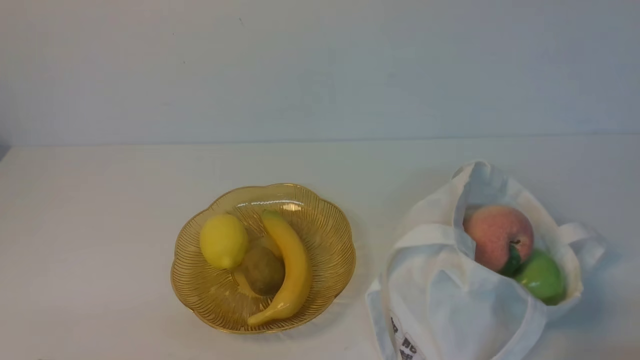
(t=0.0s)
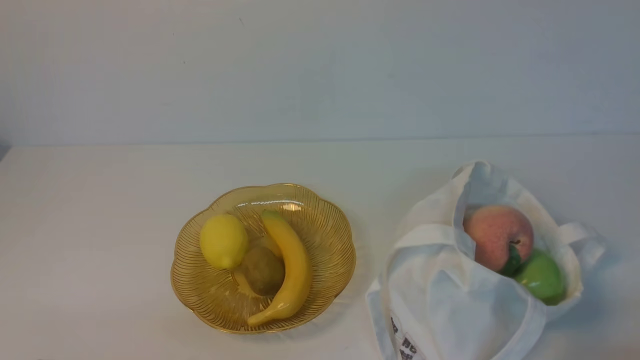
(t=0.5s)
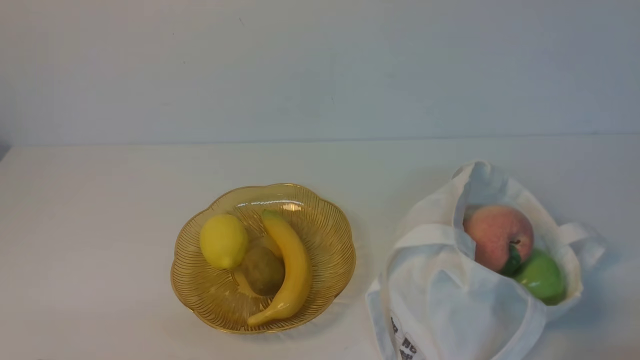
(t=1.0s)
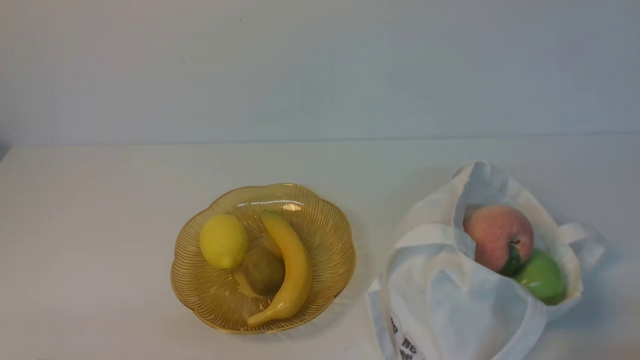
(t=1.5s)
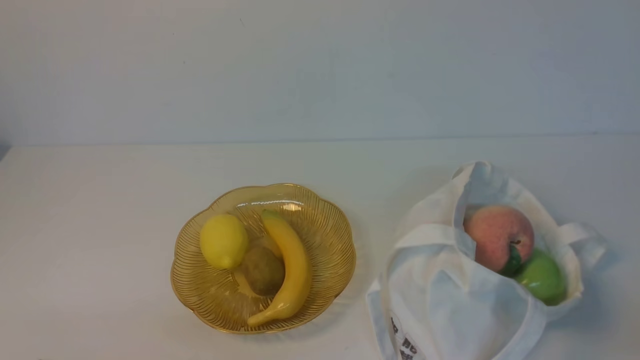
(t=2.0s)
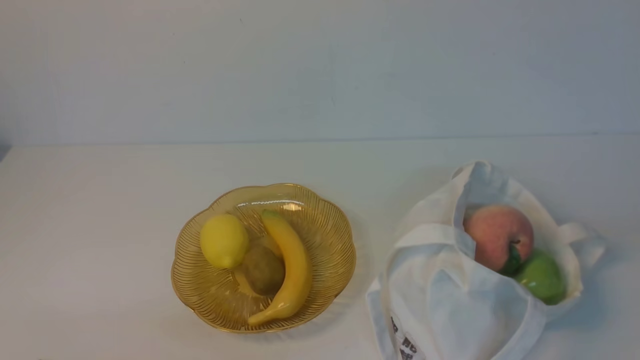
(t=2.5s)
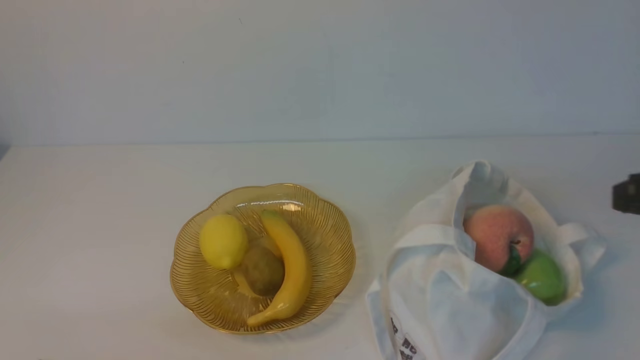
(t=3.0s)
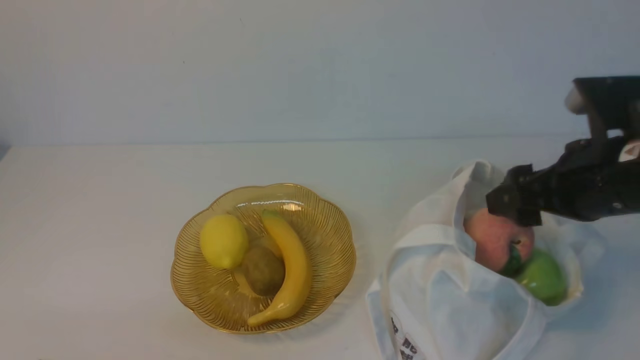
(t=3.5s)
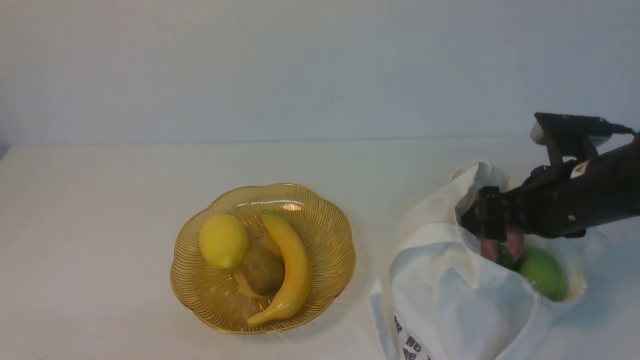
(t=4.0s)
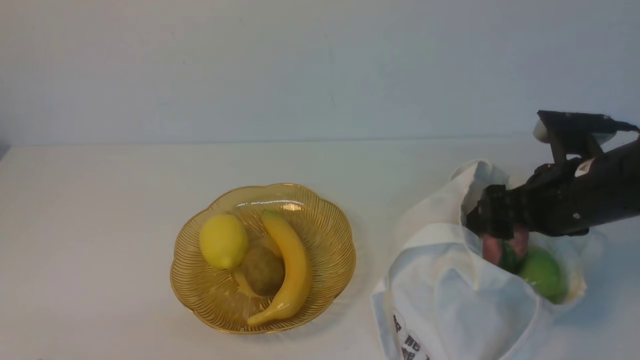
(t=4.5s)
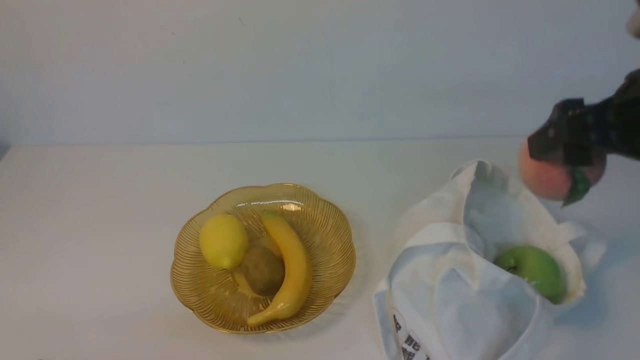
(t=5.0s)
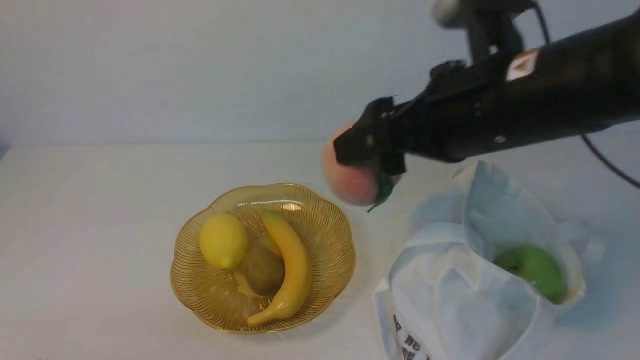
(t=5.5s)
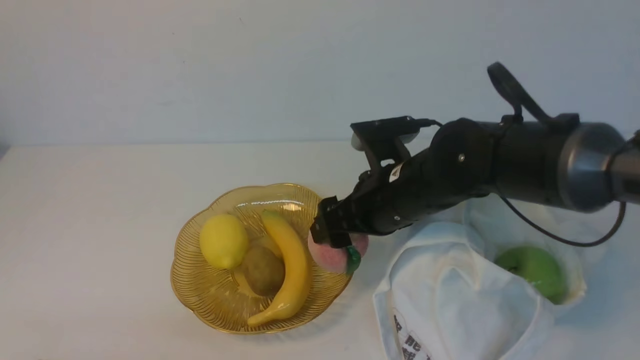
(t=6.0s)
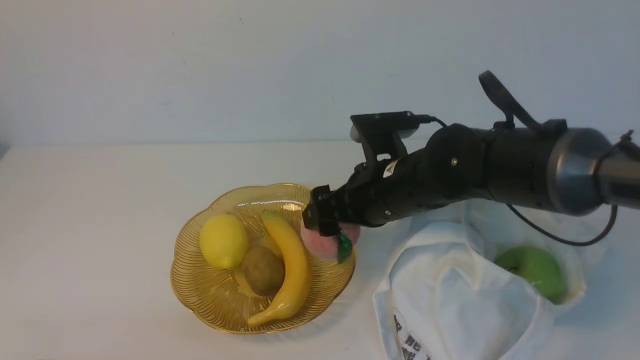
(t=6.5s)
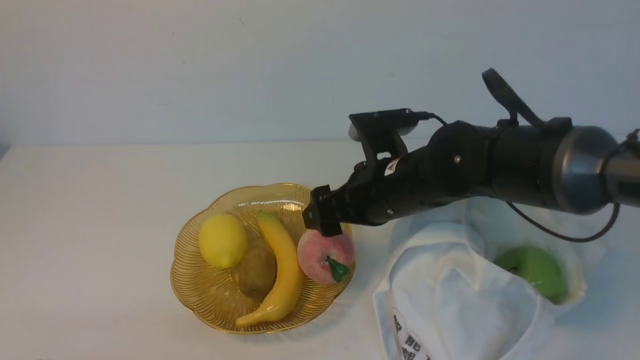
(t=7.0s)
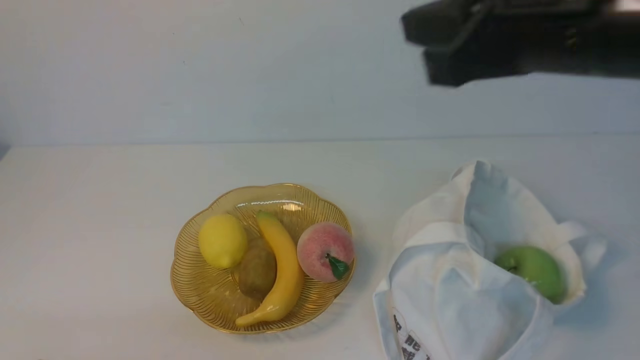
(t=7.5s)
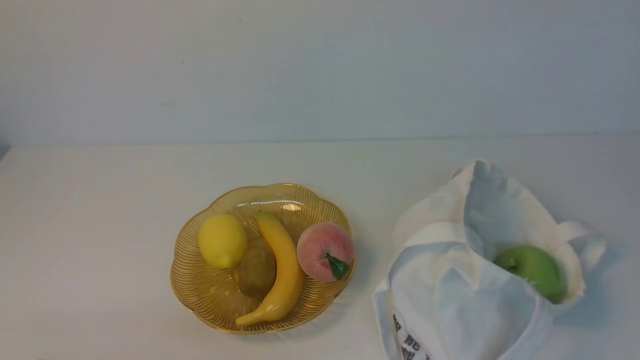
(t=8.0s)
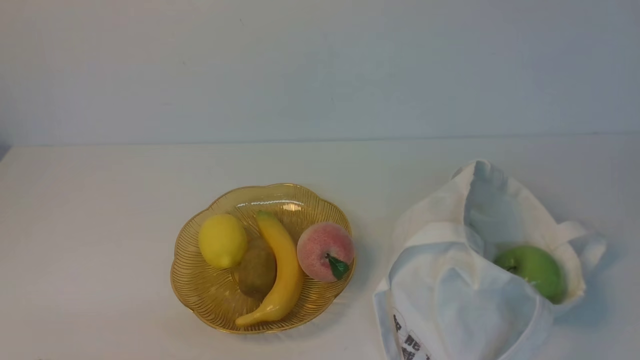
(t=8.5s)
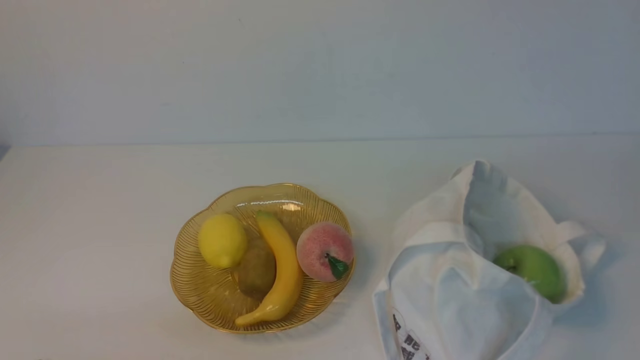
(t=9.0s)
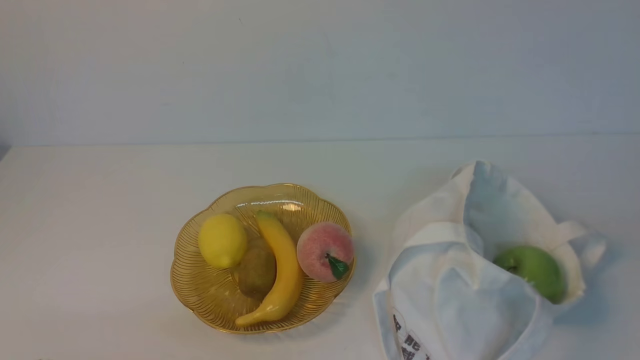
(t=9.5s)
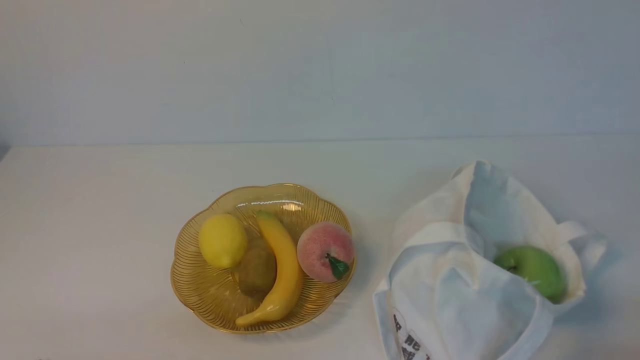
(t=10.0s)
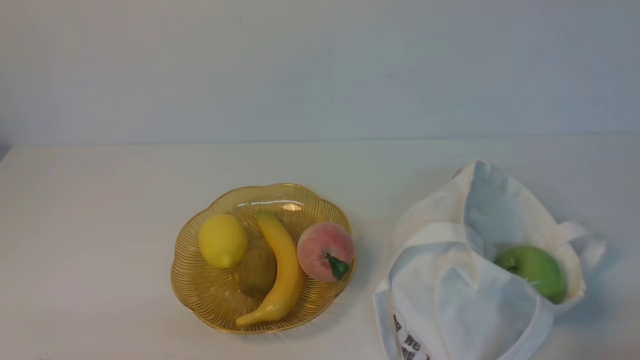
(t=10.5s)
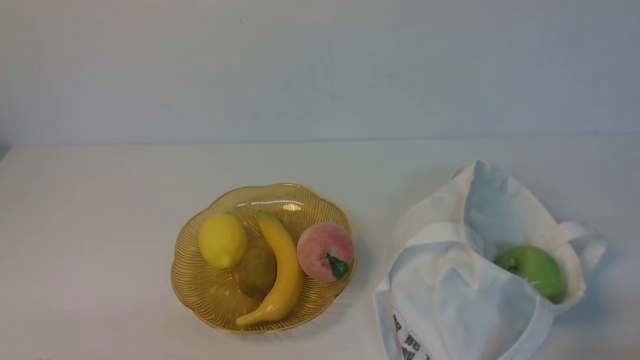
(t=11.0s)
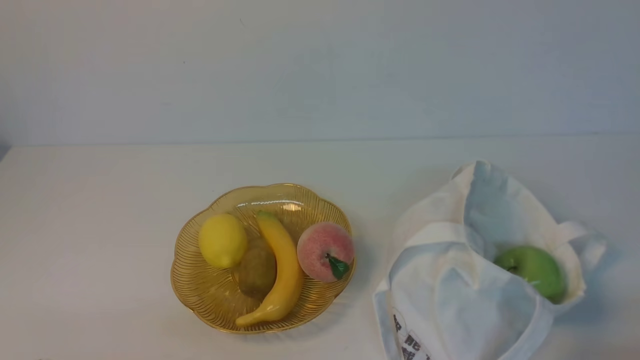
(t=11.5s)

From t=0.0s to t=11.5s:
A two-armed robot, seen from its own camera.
Step, from t=0.0s to t=4.5s: use the right arm to grab a peach from the bag.
Step, from t=5.0s to t=6.5s: use the right arm to put the peach into the empty plate on the left.
From t=2.0s to t=4.0s: The right gripper is displaced forward by some 25 cm, and opens its fingers.
From t=4.0s to t=6.0s: The right gripper goes some 15 cm to the left.
From t=6.0s to t=7.5s: The right gripper moves upward and backward, about 25 cm, and closes.
From t=7.5s to t=9.5s: The right gripper goes some 25 cm backward, downward and to the right.
